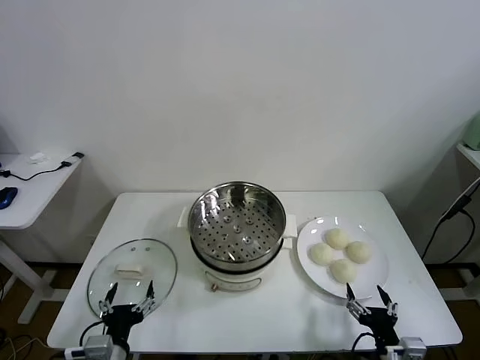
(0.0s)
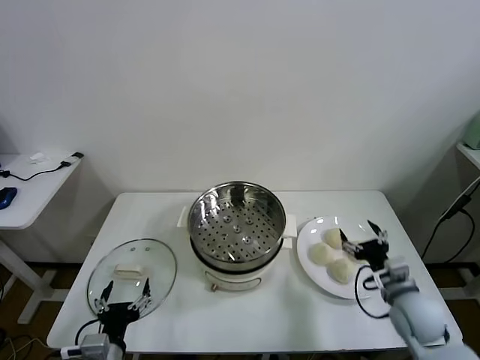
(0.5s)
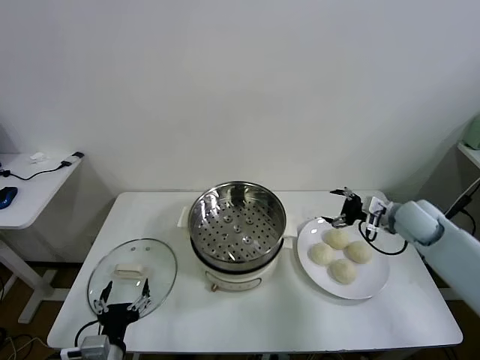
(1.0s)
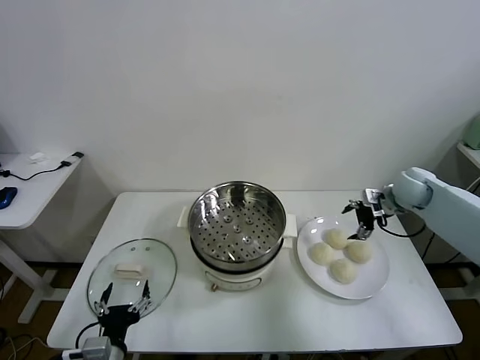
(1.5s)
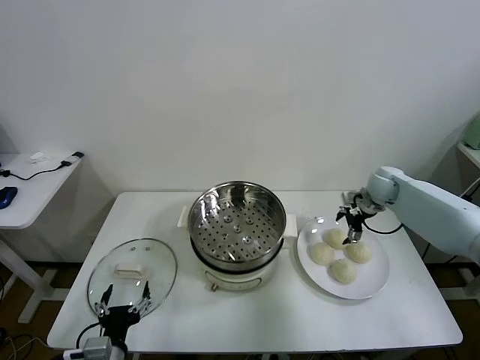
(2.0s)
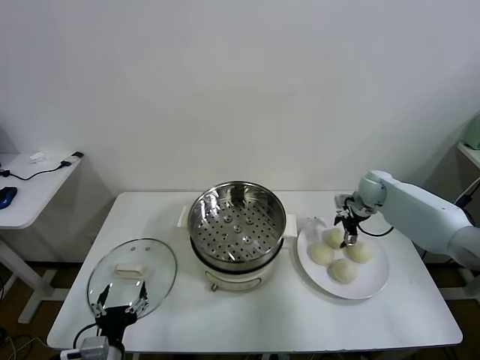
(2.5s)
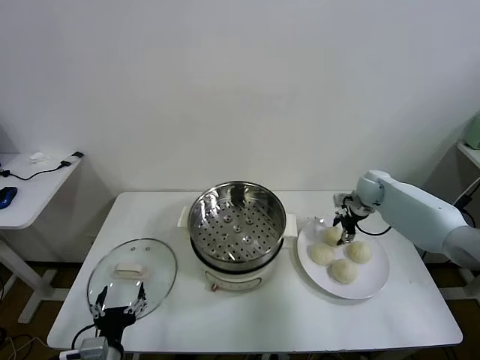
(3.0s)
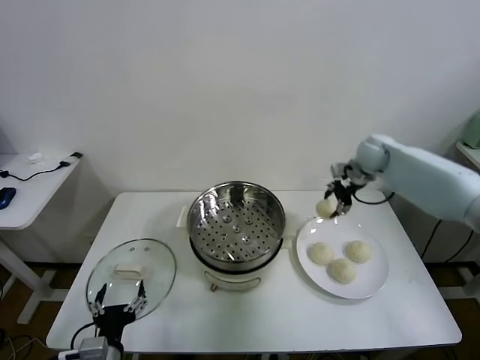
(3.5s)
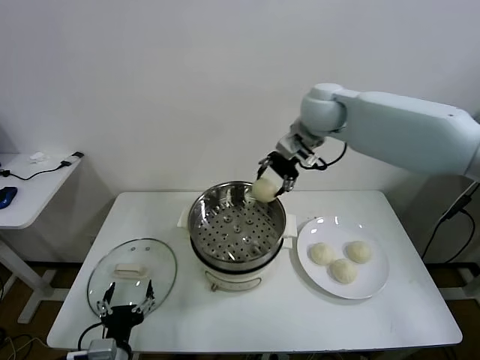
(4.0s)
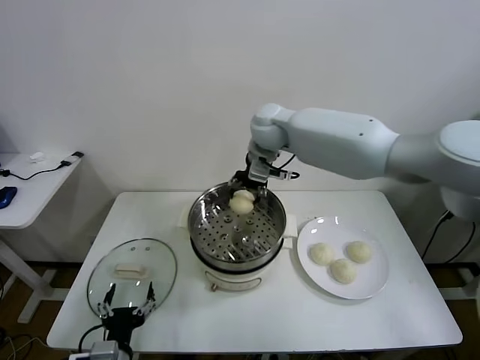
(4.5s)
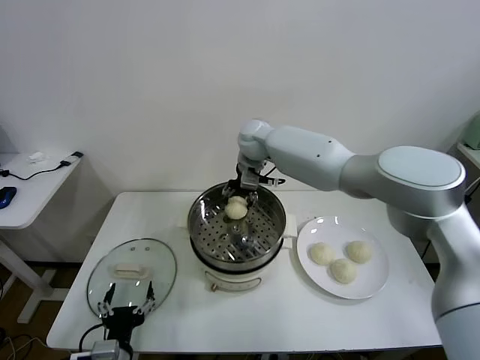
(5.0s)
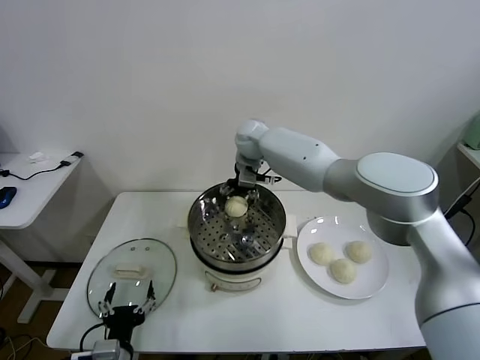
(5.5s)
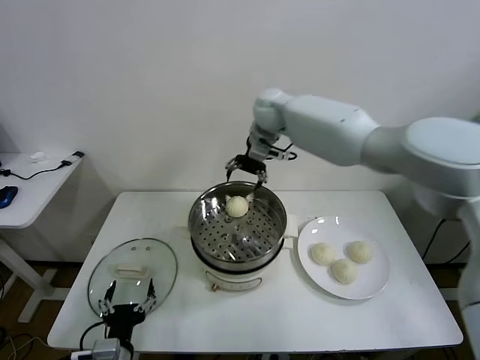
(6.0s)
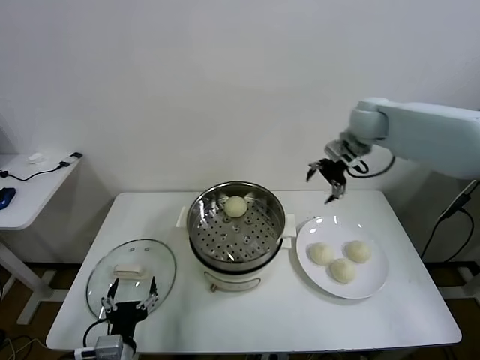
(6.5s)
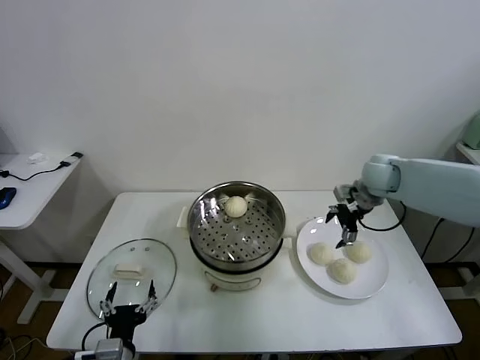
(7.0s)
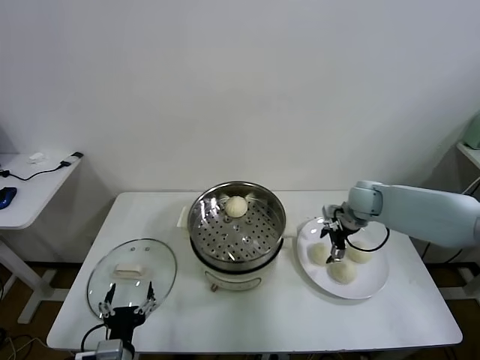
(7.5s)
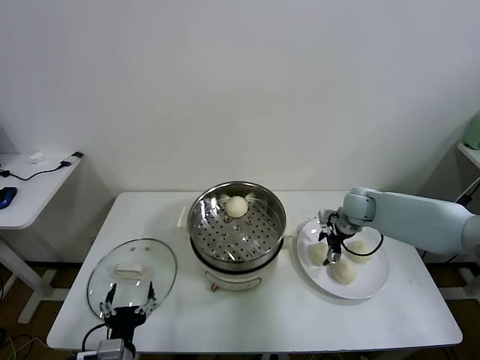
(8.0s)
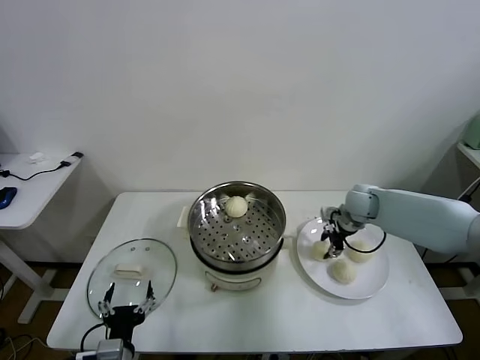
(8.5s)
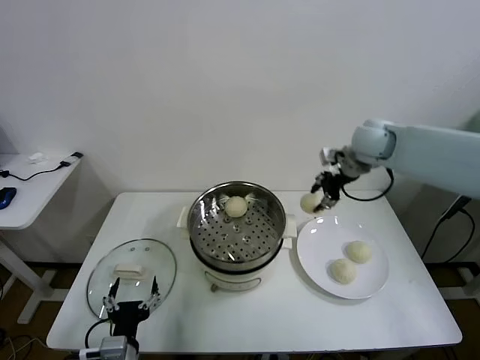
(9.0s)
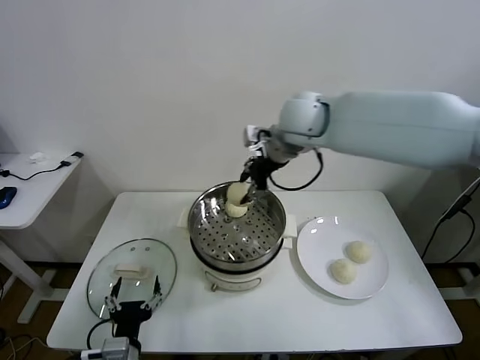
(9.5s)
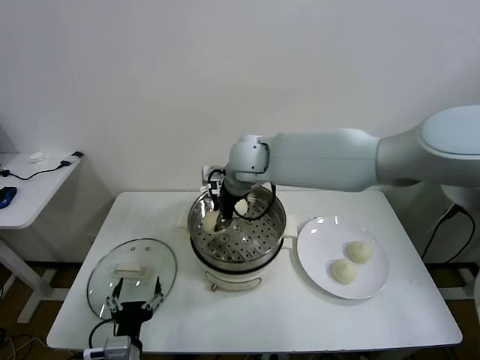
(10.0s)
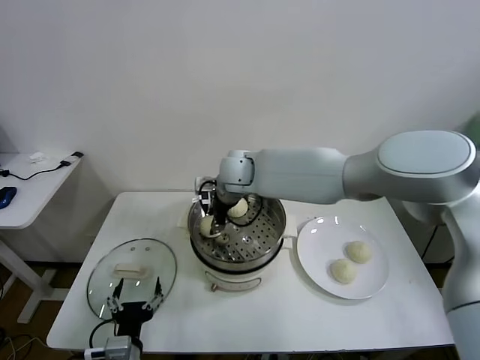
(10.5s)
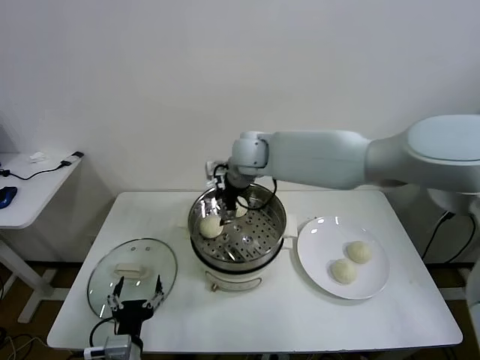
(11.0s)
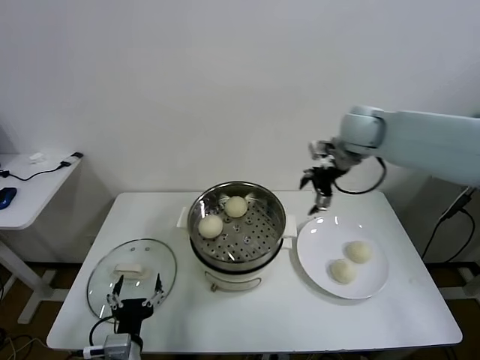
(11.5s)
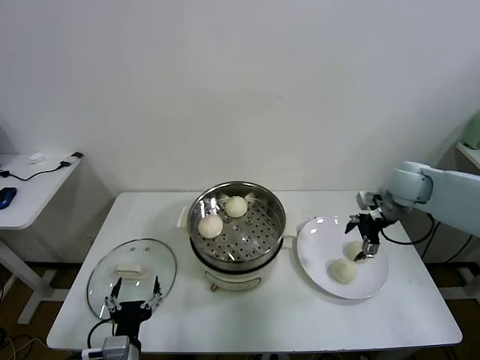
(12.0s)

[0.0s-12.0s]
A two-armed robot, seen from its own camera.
Task of the whole recording: take steamed baozi put them in steamer.
Step, 0.0s to 2.5s: Grasp the baozi in the plate with right gripper.
Step, 3.5s to 5.5s: Place the baozi on the steamer with right gripper.
Step, 6.0s to 8.0s: Grasp the baozi in the plate with right gripper.
Step, 8.5s to 10.5s: Place the baozi on the steamer with right gripper.
2.0s to 4.0s: The right gripper goes some 35 cm to the left and upward, and closes.
4.0s to 6.0s: The right gripper moves forward, some 10 cm, reaches approximately 10 cm downward, then returns, and opens.
6.0s to 8.0s: The right gripper is displaced downward and to the right by approximately 30 cm.
8.0s to 10.0s: The right gripper travels to the left and upward by about 35 cm, and closes its fingers.
10.0s to 12.0s: The right gripper goes roughly 35 cm to the right, and opens its fingers.

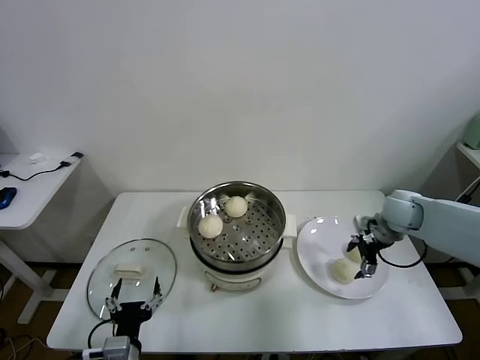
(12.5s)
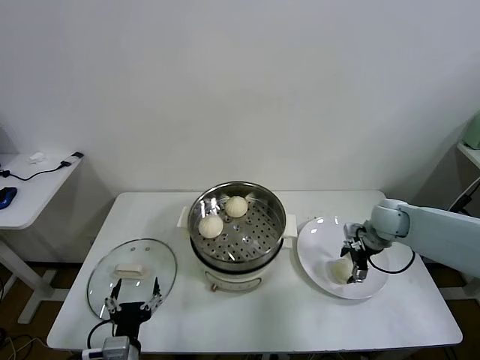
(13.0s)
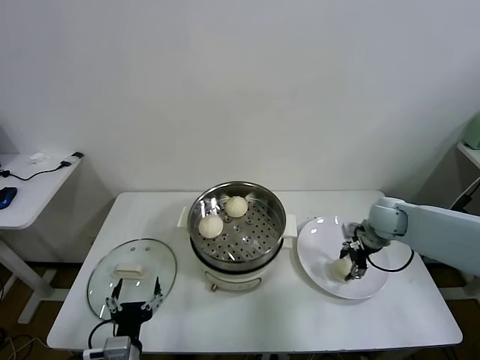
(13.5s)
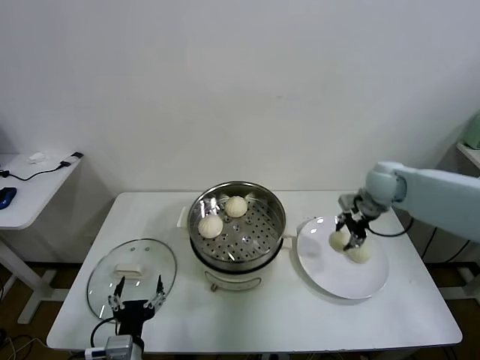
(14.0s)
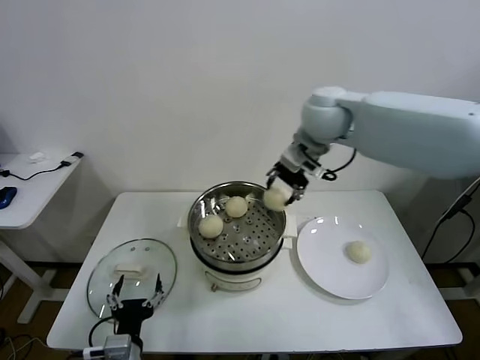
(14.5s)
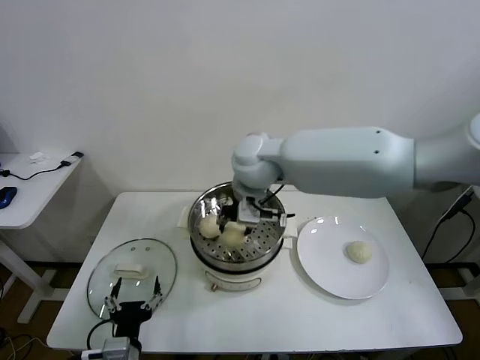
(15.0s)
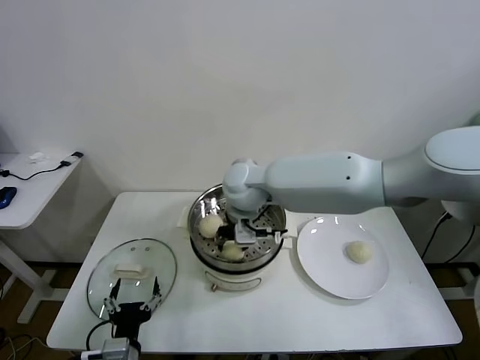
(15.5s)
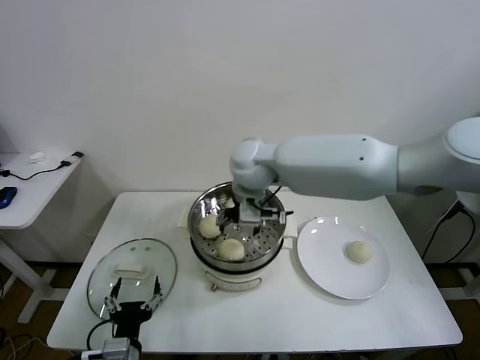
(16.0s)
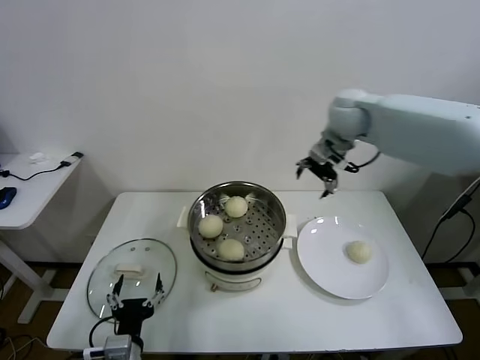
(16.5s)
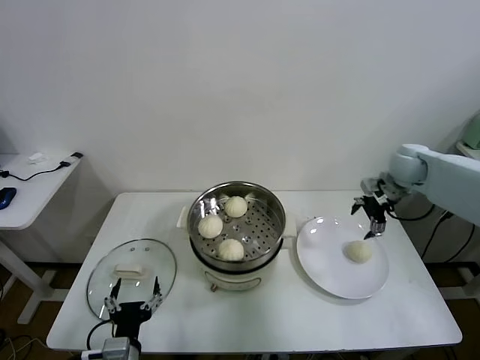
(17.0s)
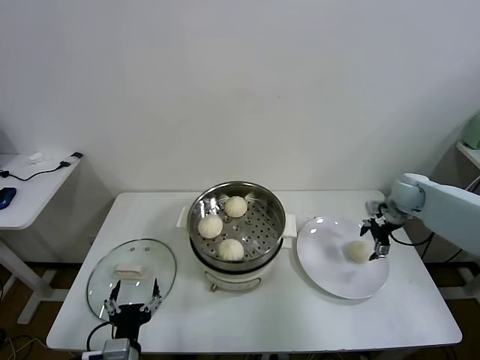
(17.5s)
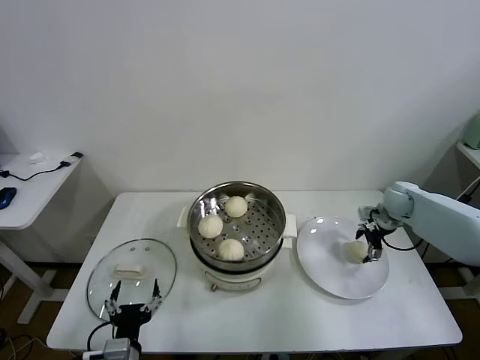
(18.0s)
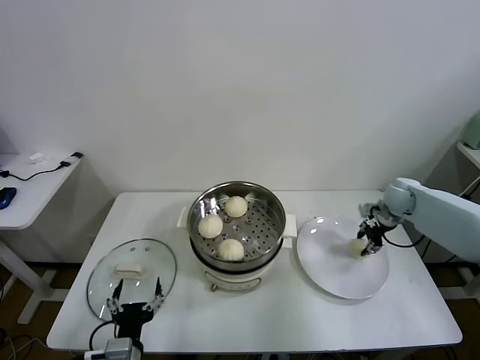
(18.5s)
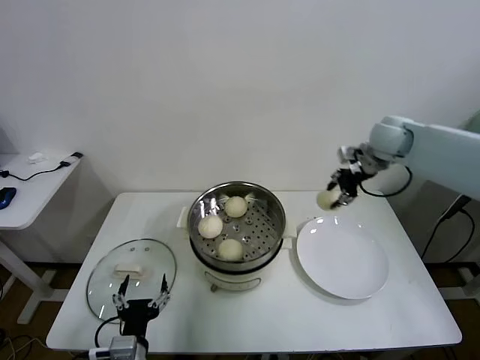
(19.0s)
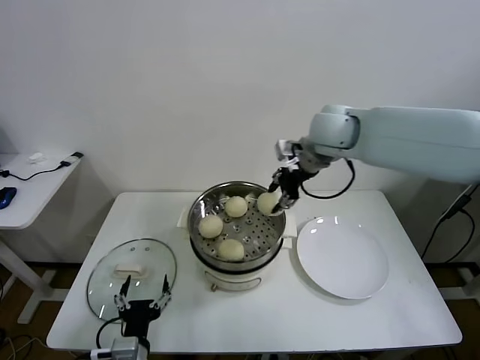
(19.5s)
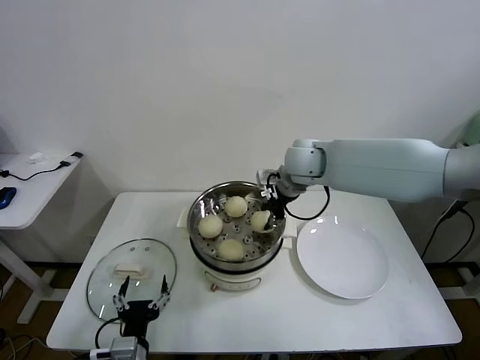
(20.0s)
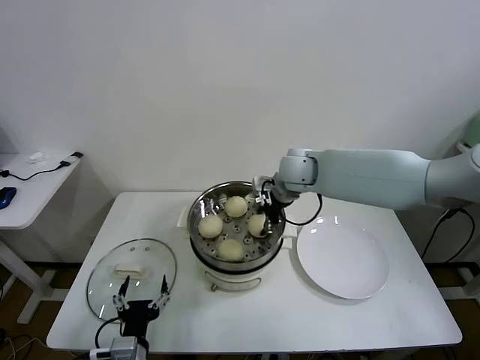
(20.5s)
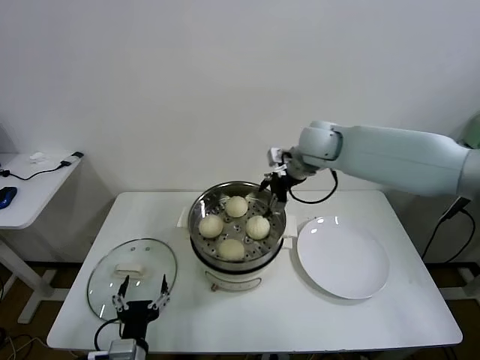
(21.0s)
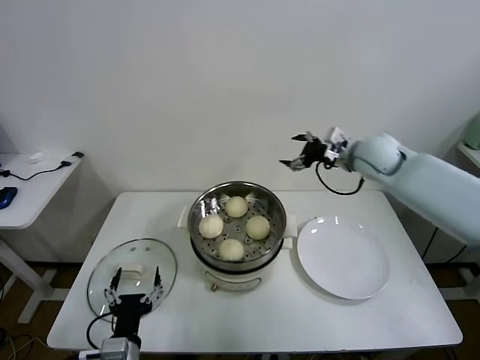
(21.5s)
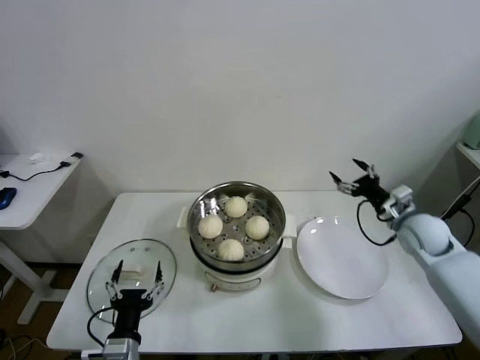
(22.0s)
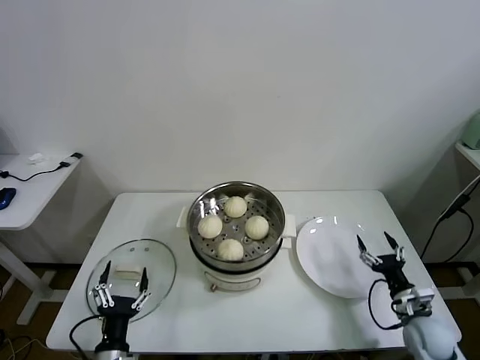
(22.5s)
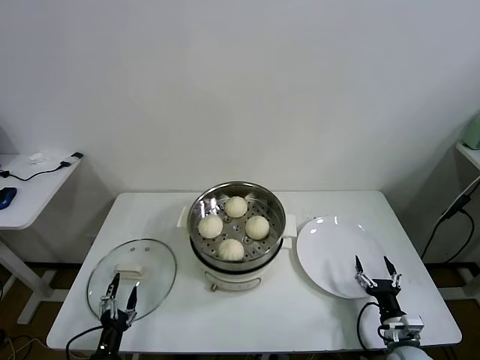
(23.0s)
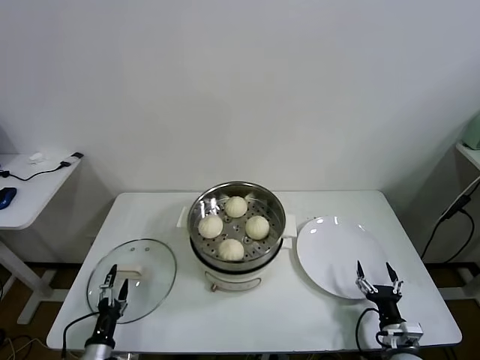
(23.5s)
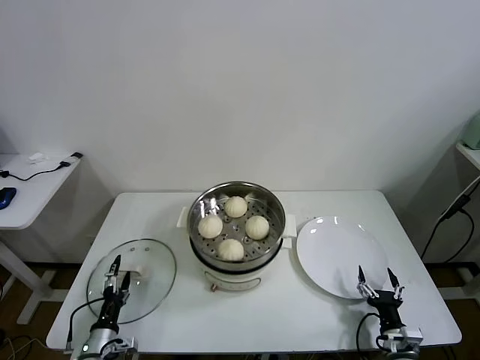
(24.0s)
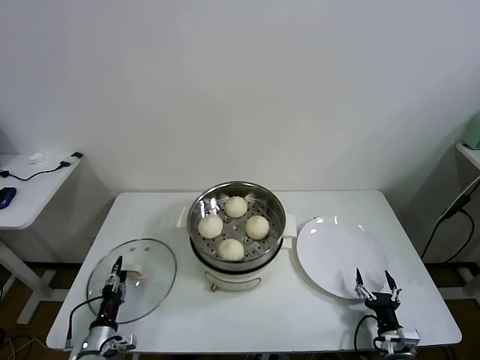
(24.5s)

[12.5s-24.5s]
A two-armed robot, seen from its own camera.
Task of the whole recording: take steamed baozi put them in steamer.
Step, 13.5s to 15.5s: Place the baozi on the steamer with right gripper.
Step, 16.0s to 18.0s: Grasp the baozi in the plate with right gripper.
Step, 18.5s to 20.5s: Place the baozi on the steamer with right gripper.
12.5s to 14.5s: The right gripper travels to the left and upward by some 35 cm, and closes up.
14.5s to 16.5s: The right gripper moves to the right and forward, about 10 cm, and opens up.
16.5s to 18.5s: The right gripper moves downward and to the right, approximately 30 cm, and closes its fingers.
18.5s to 20.5s: The right gripper moves to the left, about 30 cm.
20.5s to 22.5s: The left gripper moves some 5 cm; the right gripper is displaced to the right, downward and backward by about 50 cm, and opens up.
22.5s to 24.5s: The left gripper shifts about 15 cm to the left, downward and forward, and closes its fingers, while the right gripper moves backward, downward and to the left, about 10 cm.

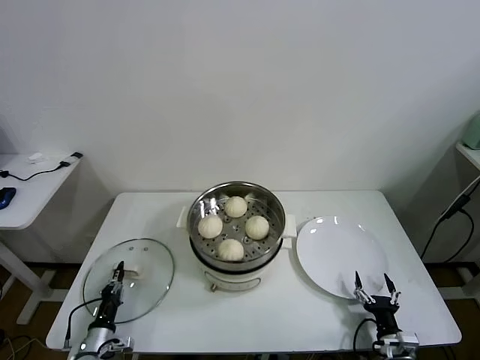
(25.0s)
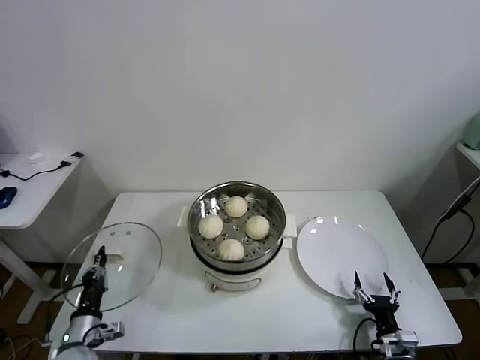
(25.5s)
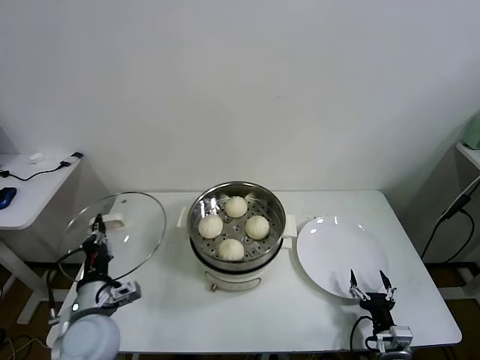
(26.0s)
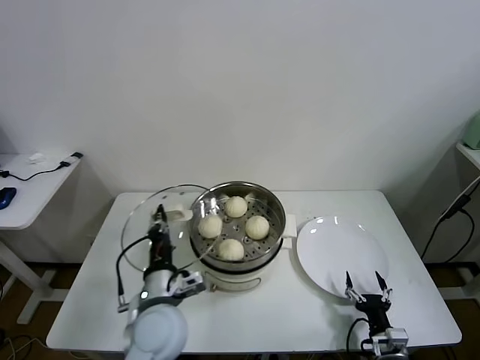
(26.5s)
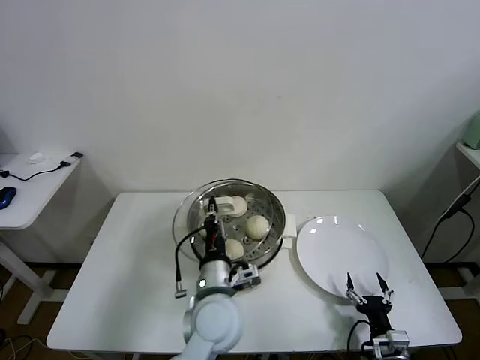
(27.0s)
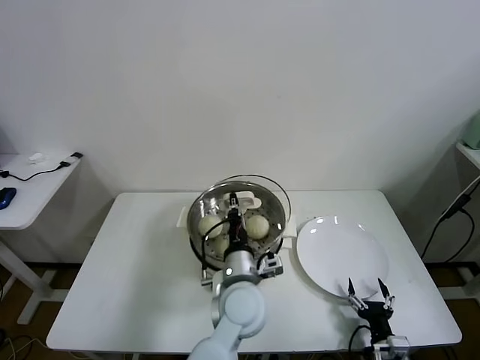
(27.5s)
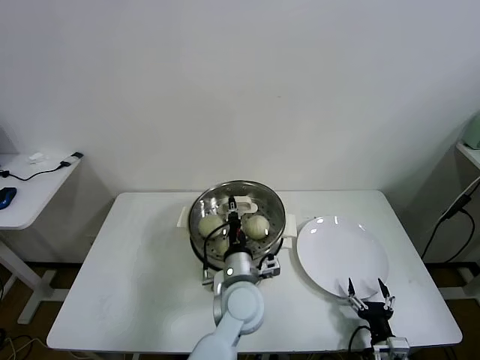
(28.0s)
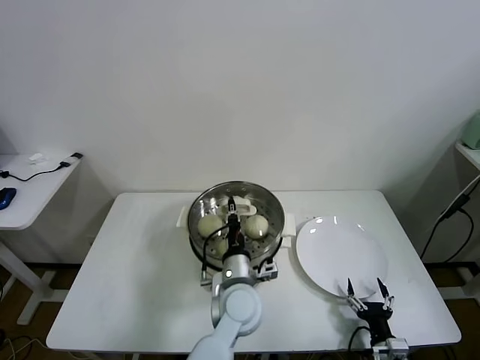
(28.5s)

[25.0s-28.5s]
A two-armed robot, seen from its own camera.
Task of the whole recording: take steamed baozi put them in steamer.
25.0s to 27.0s: The left gripper shifts about 40 cm to the right and upward.
27.0s to 28.5s: The left gripper travels to the right by about 5 cm.
